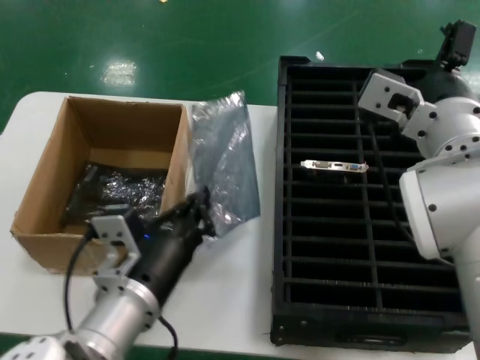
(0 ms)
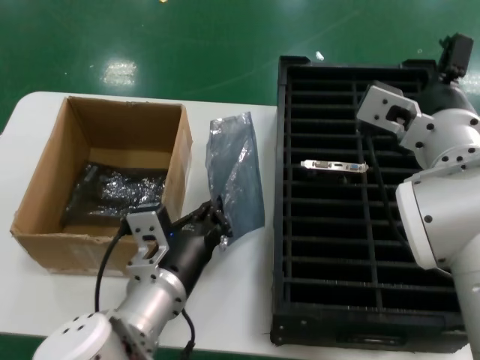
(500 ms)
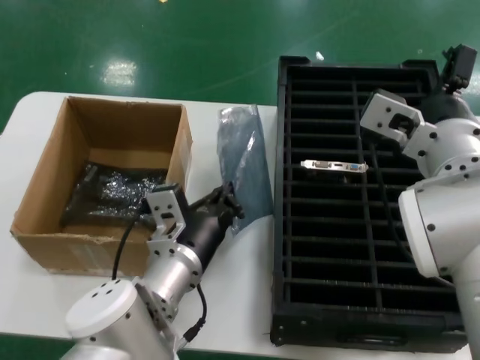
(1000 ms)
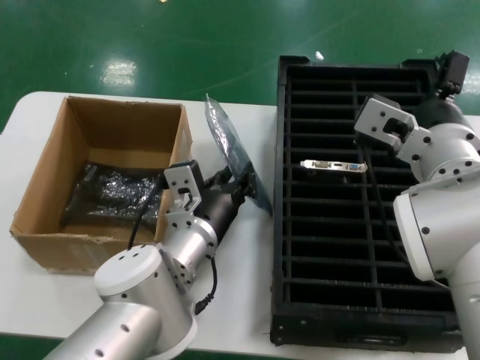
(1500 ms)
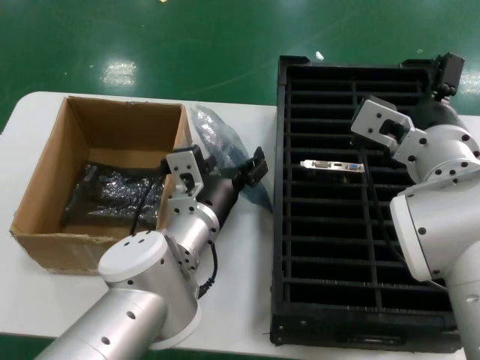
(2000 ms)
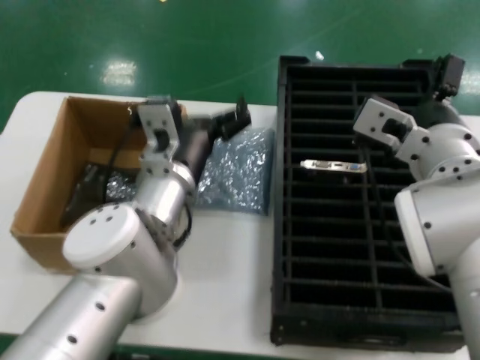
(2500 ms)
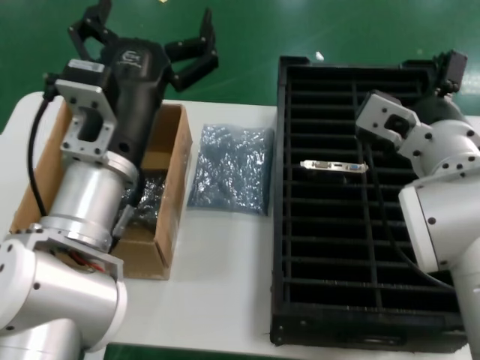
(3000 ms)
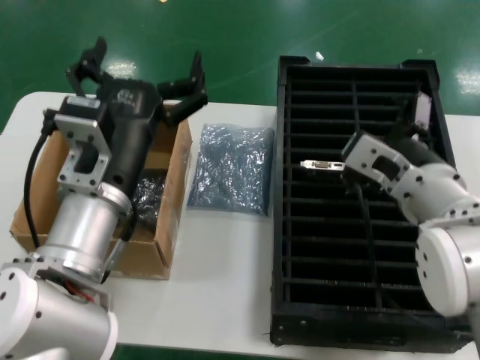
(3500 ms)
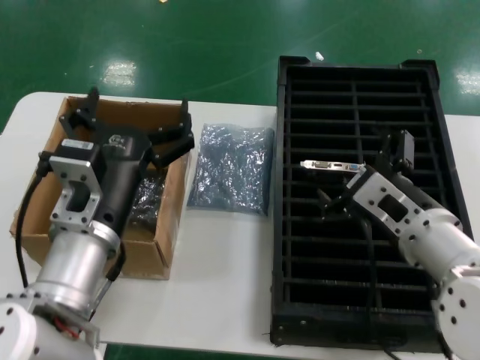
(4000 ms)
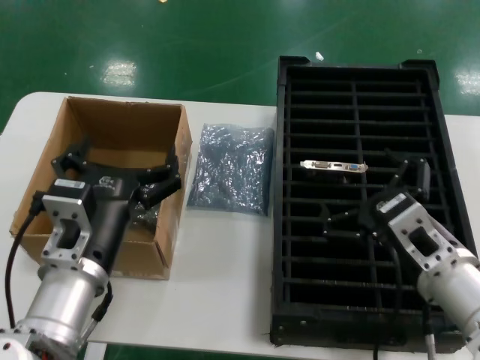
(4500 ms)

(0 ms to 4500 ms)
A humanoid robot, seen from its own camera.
Task of the whole recording: take out graphics card from box remove packaging put into black container.
Step, 0 ms - 2500 ms: Place the down the bag.
0 ms - 2000 ms: The left hand goes approximately 15 cm forward.
2000 ms - 4500 ms: The left hand heads backward and to the left, covering approximately 15 cm, while the right hand shifts about 15 cm downward, to the right and backward.
